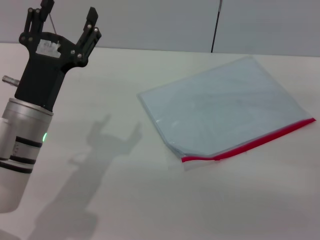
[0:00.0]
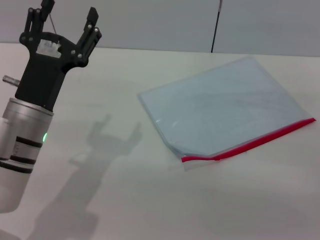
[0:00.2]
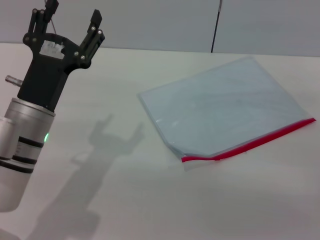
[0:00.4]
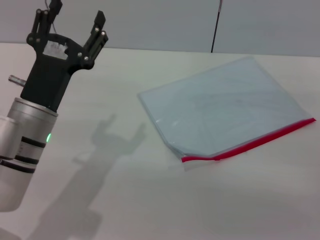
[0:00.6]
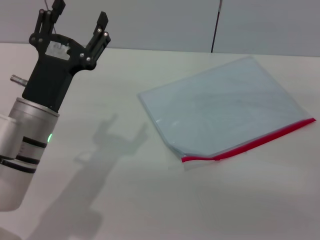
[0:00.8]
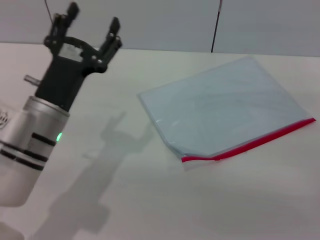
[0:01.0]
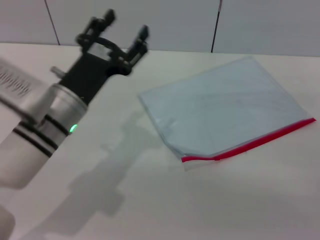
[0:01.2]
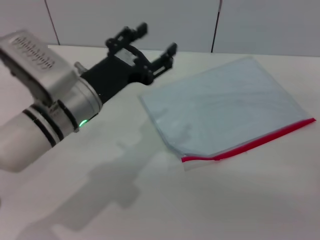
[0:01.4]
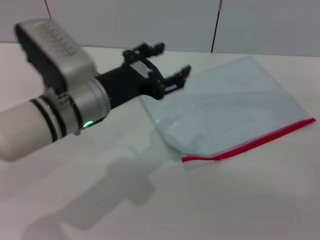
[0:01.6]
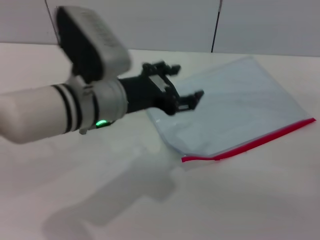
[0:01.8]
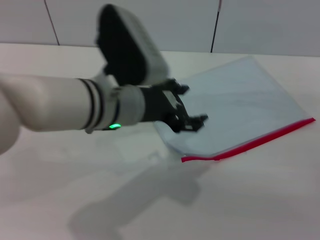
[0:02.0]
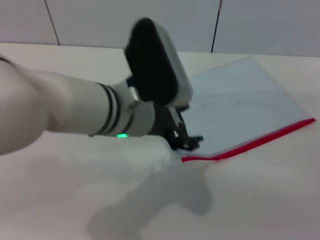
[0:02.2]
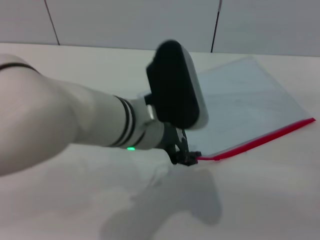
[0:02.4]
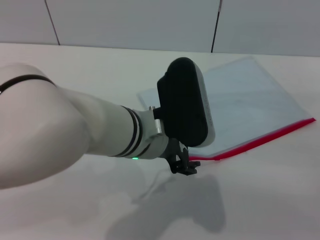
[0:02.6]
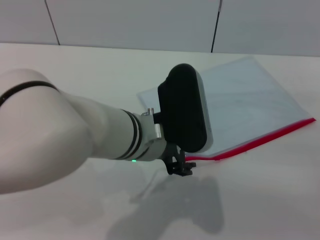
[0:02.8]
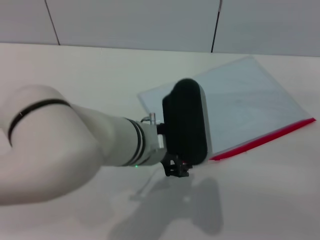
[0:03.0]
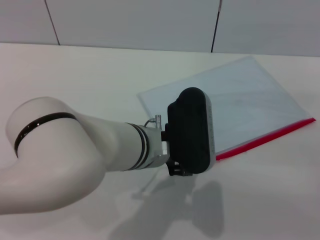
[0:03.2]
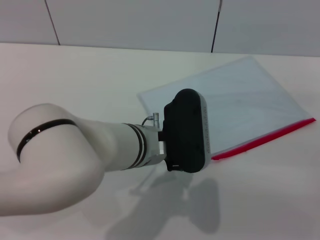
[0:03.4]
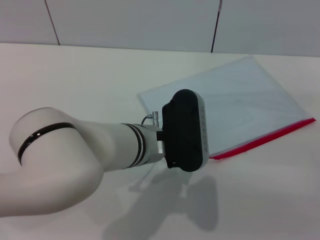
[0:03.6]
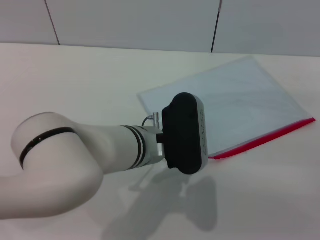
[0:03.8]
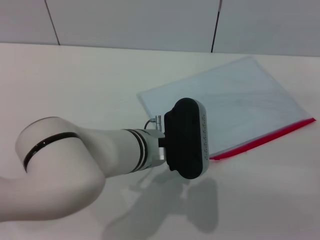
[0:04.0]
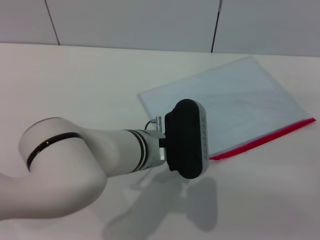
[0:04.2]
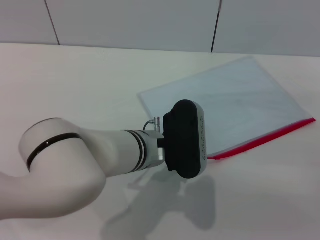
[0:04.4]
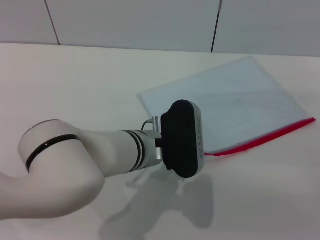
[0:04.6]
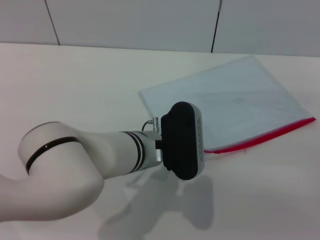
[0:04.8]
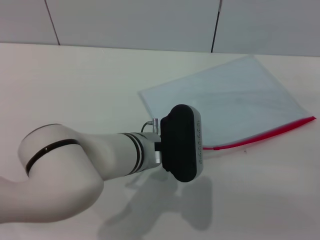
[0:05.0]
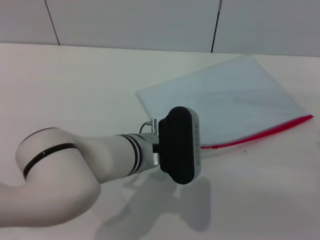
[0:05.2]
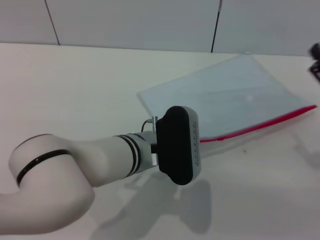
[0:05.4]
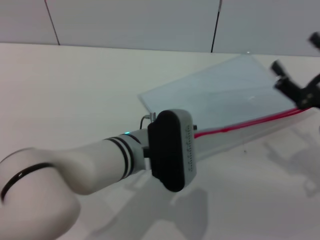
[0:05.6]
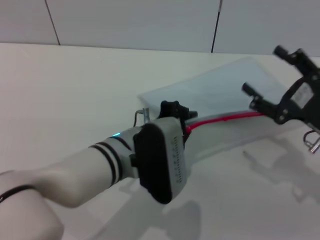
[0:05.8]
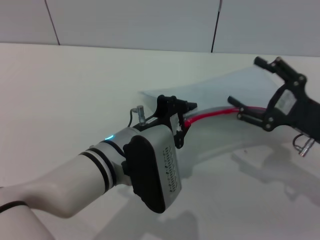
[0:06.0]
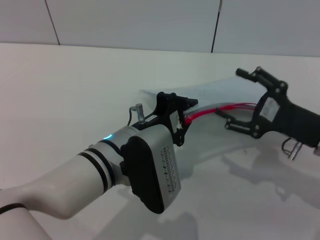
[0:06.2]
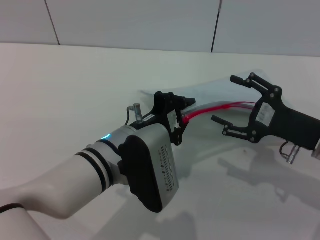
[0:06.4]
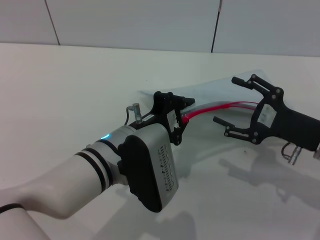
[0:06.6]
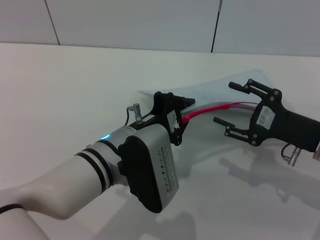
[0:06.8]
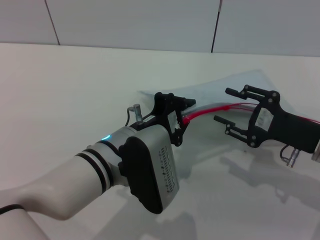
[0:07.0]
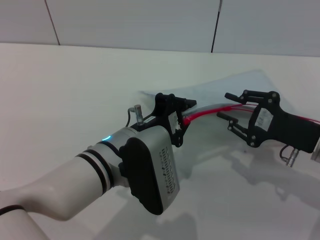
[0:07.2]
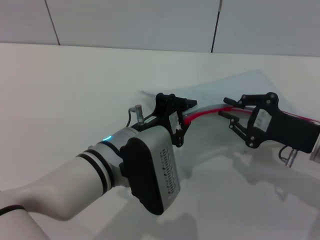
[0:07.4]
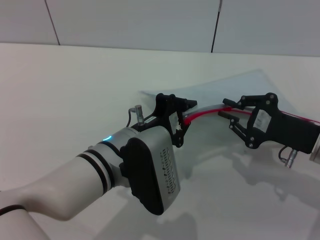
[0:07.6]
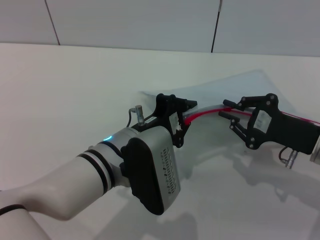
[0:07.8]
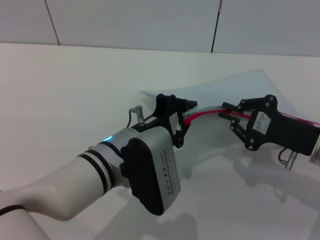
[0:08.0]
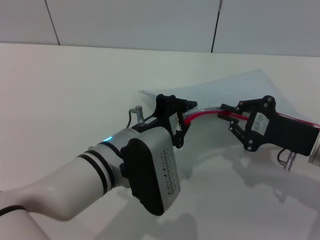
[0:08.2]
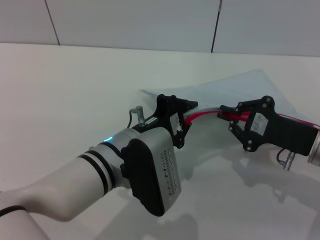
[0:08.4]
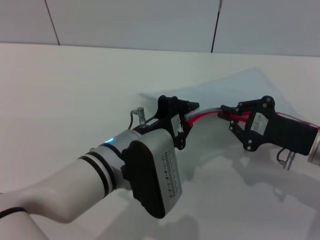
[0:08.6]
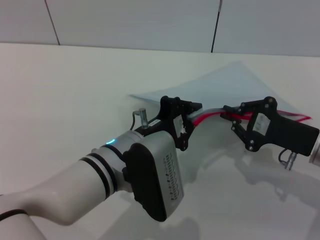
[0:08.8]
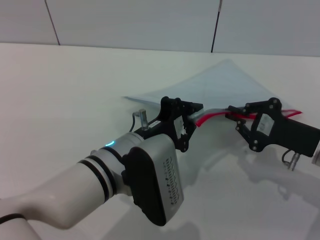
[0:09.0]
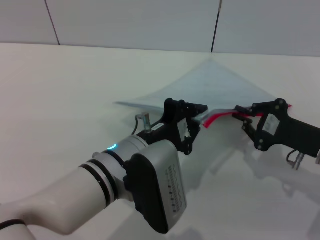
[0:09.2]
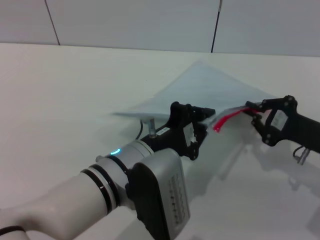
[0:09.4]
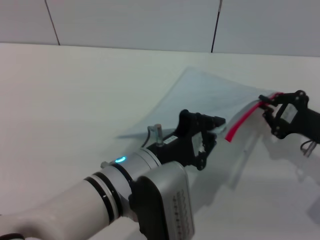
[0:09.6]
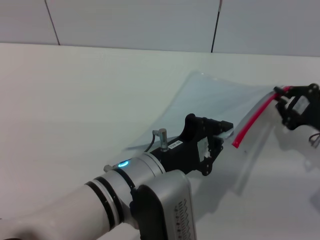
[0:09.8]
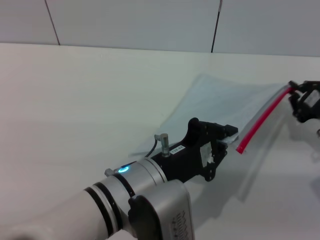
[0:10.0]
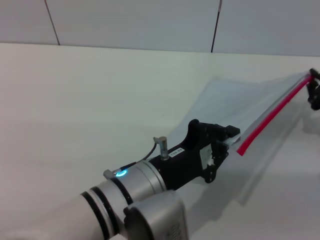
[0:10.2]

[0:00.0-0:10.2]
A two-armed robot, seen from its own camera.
Step, 0.0 to 5.6 s: Pick up the transparent plastic bag with the left gripper.
0.0 to 1.4 s: The left gripper shifts by approximately 5 cm.
1.4 to 3.0 s: The left gripper goes roughly 10 cm to the right.
3.0 to 4.4 s: There are only small adjustments of the grippers.
4.4 to 5.8 s: The right gripper changes place by some 5 cm; the left gripper closes up.
5.8 to 7.2 s: The right gripper closes.
7.2 to 8.8 s: The right gripper closes up.
8.8 to 10.2 s: The left gripper travels backward by approximately 5 cm; the right gripper shifts about 5 cm to the right.

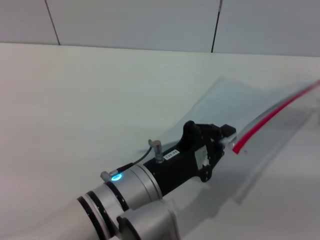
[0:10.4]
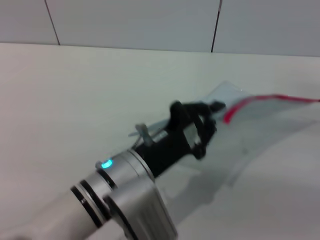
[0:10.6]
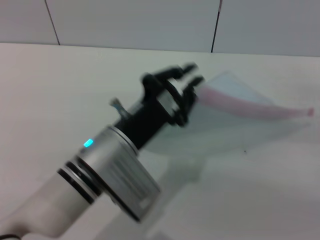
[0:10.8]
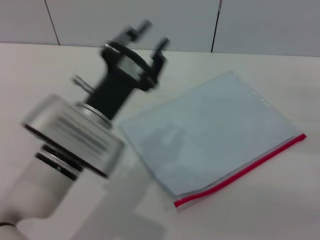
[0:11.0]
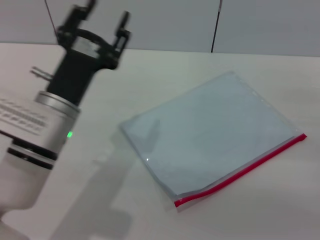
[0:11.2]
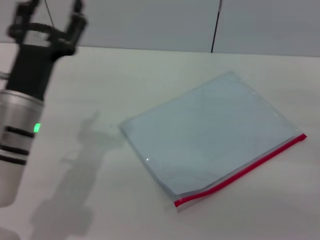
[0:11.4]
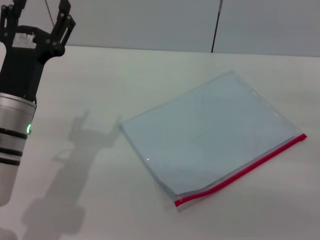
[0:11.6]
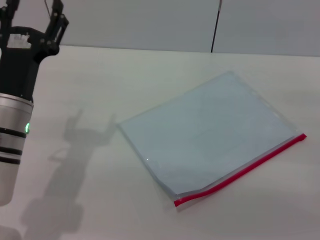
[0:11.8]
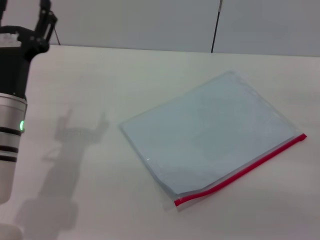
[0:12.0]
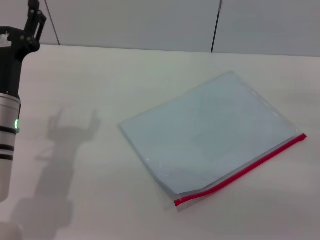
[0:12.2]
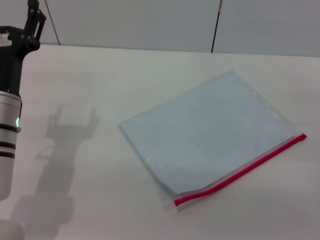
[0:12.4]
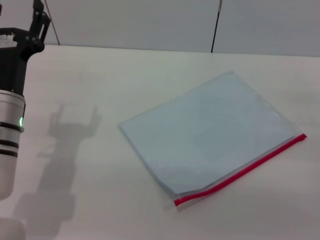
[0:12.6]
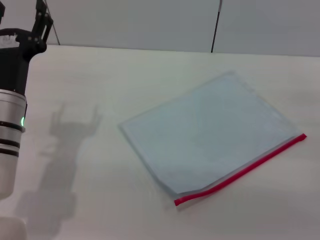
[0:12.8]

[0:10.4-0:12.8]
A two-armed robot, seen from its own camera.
Step, 10.8 to 11.4 s: Place the transparent plastic bag.
10.4 to 11.6 s: The right gripper heads backward, covering approximately 10 cm, and opens up. The left gripper travels to the left and forward by some 15 cm, and opens its fingers.
11.6 to 12.8 s: There are only small adjustments of the grippers.

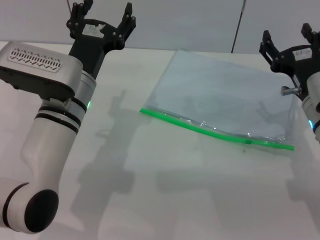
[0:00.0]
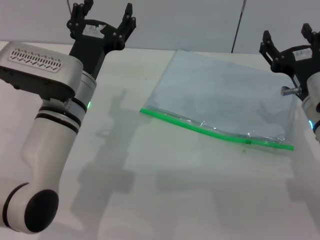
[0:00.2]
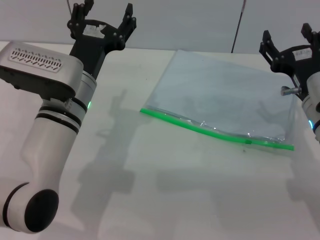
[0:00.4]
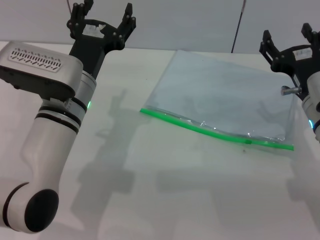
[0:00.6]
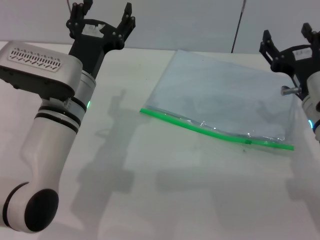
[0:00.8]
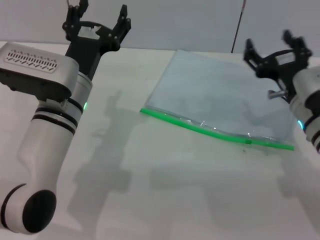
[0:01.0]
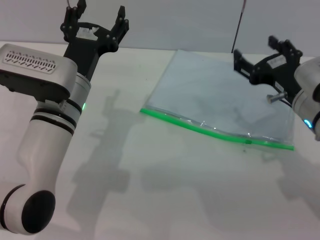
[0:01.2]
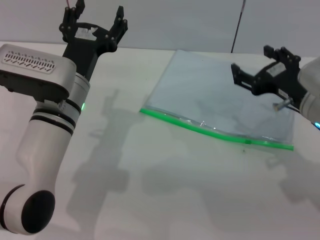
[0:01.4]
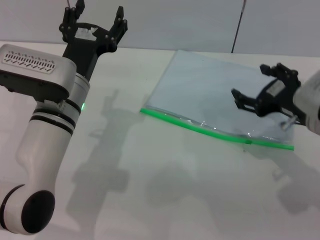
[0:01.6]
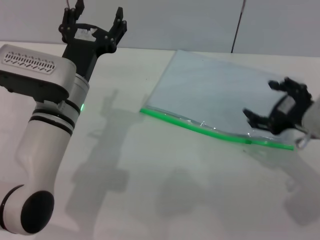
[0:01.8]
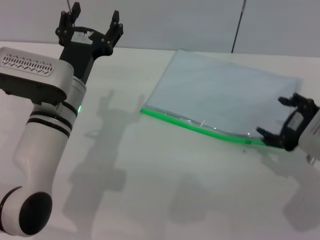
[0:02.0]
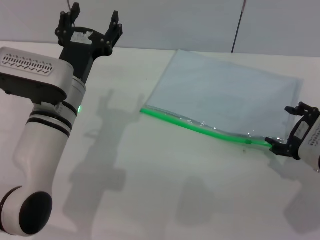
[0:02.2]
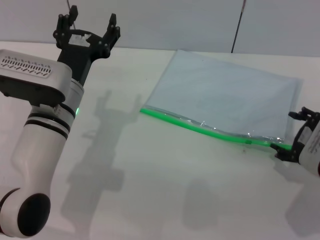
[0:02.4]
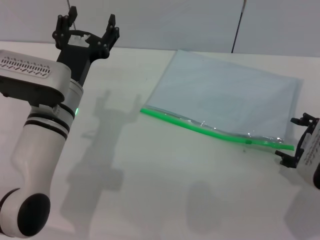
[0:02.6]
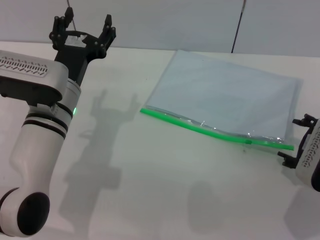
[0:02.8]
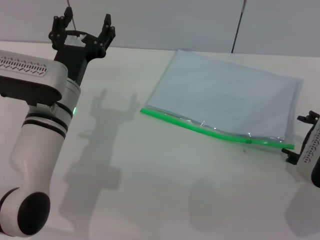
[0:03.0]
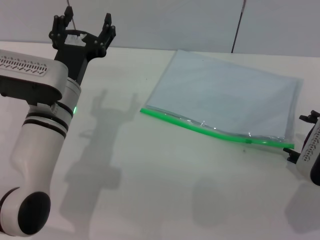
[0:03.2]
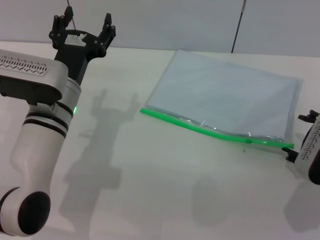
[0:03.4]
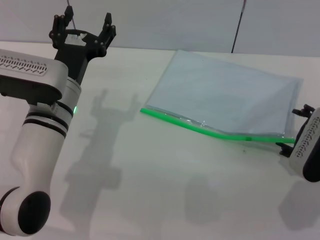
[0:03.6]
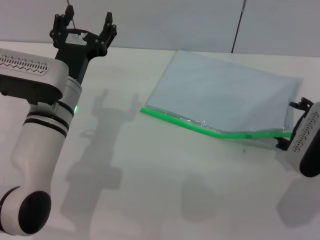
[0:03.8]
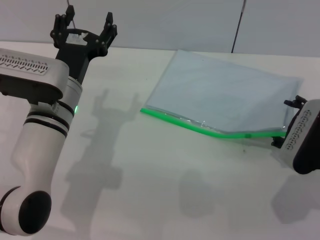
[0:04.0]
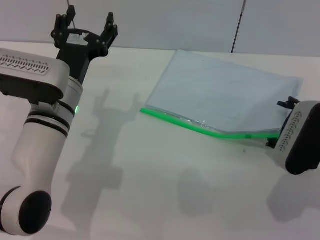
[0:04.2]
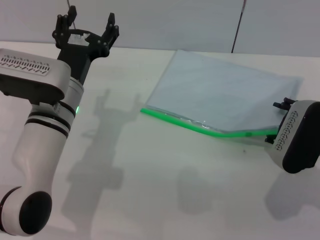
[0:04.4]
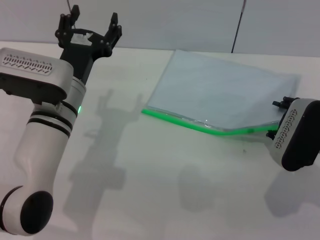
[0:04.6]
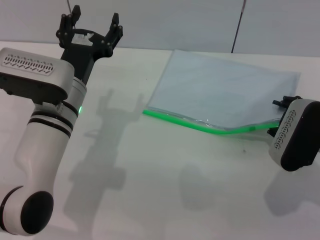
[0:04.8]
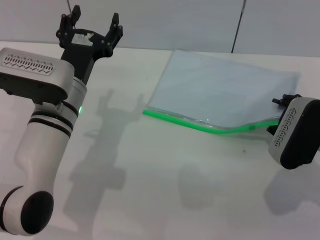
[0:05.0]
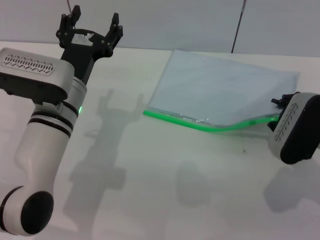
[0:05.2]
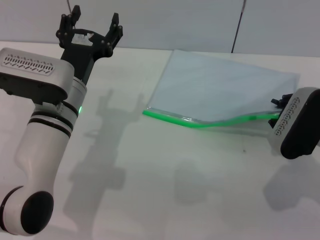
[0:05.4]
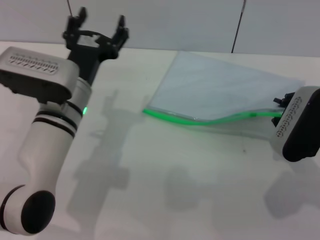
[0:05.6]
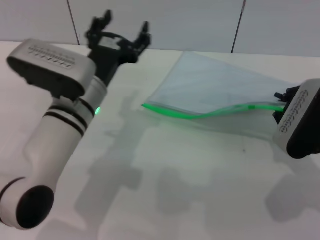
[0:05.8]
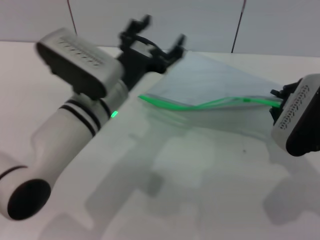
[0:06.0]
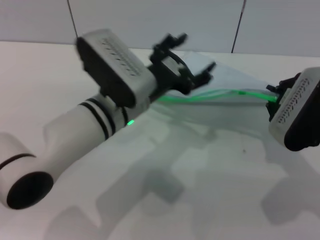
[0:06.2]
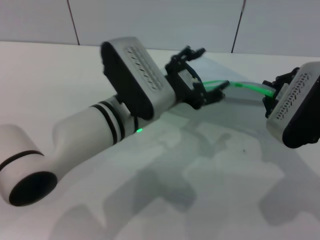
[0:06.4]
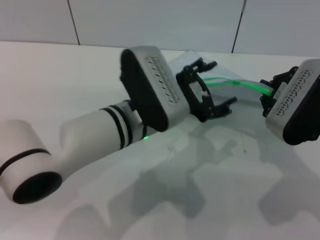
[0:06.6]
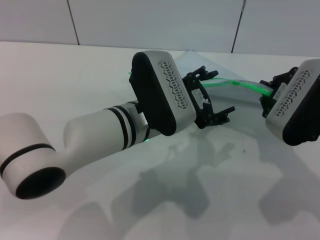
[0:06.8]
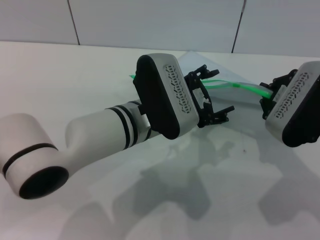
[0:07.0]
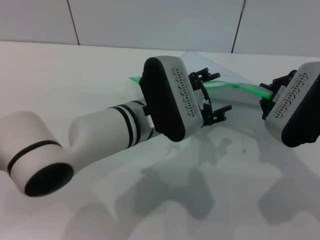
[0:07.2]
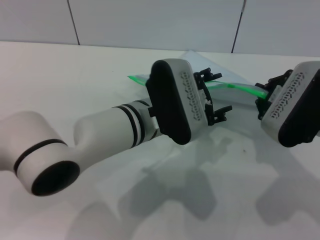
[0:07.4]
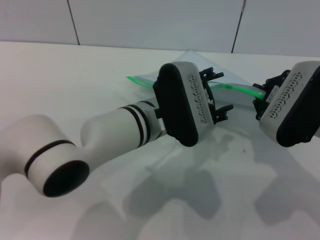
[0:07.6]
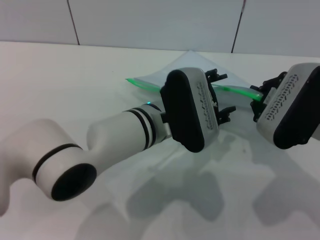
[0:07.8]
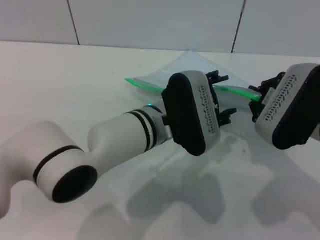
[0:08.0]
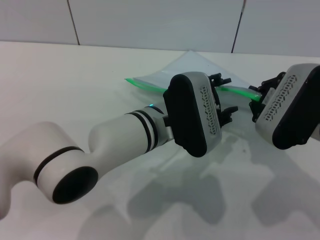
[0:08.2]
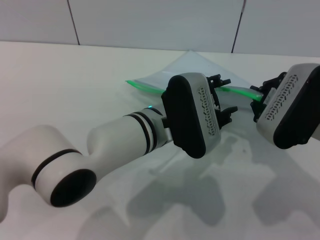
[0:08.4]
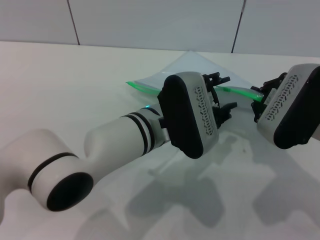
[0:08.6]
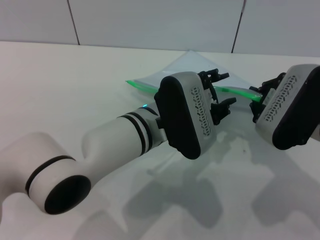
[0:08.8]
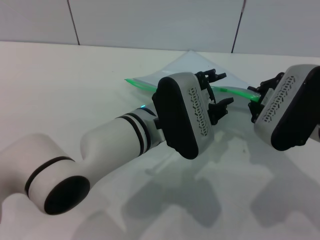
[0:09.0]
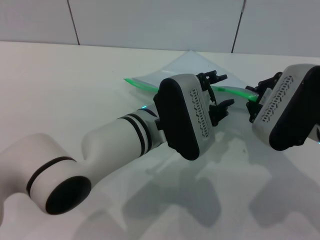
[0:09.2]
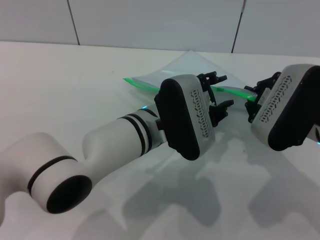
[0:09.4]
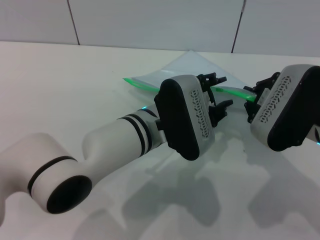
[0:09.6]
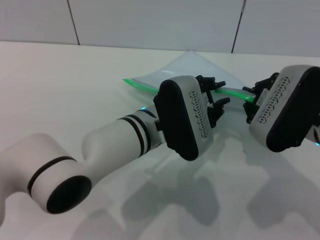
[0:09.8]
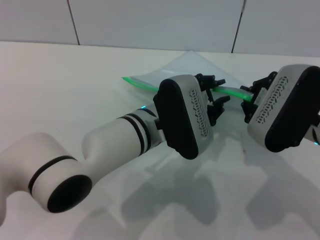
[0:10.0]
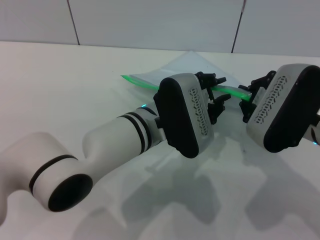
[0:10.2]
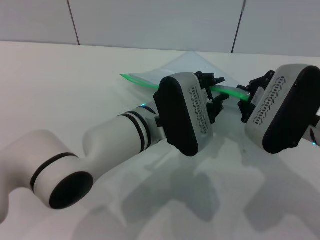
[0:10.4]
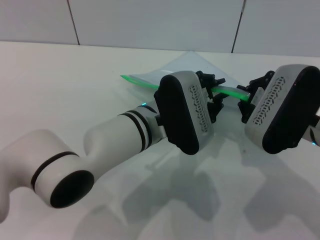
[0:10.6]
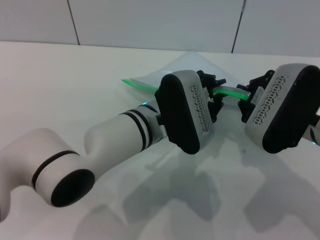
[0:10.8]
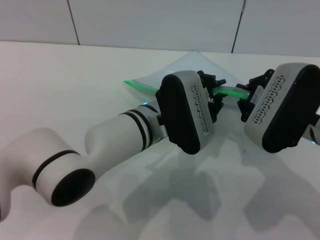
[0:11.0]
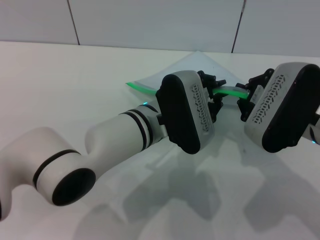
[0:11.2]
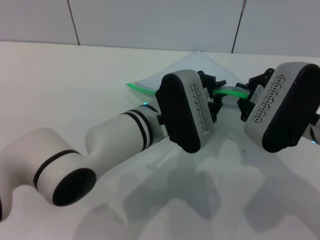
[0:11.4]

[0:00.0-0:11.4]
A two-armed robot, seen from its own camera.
Step, 0.0 to 6.0 s: Pick up the transparent plastic bag with the right gripper.
1.4 to 2.8 s: The right gripper ends up some 5 cm from where it was.
2.8 to 4.2 s: The grippers stay close to where they were, moving slightly.
4.2 to 5.6 s: The right gripper closes up.
5.6 to 7.2 s: The left gripper heads to the right, covering approximately 10 cm.
7.2 to 8.6 s: There are only small adjustments of the grippers.
8.6 to 10.0 s: The two grippers keep their place.
10.0 to 11.4 s: Neither gripper changes place.
